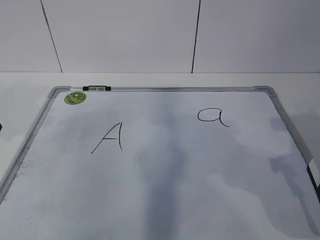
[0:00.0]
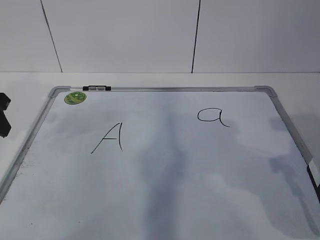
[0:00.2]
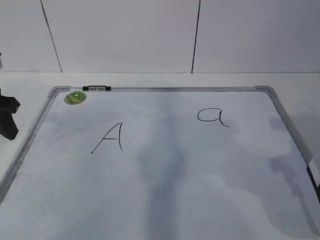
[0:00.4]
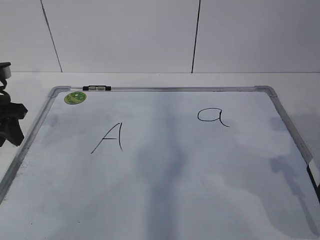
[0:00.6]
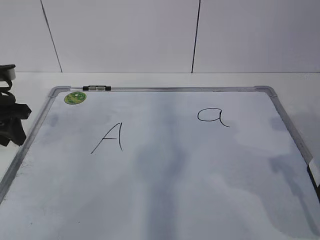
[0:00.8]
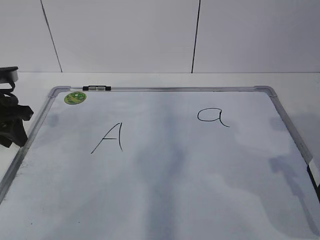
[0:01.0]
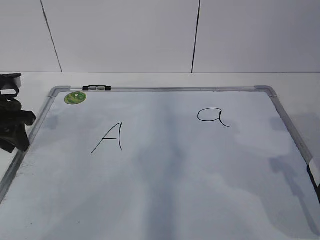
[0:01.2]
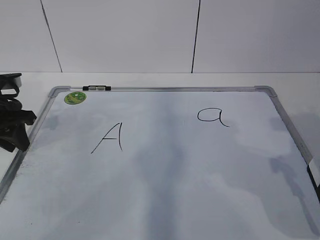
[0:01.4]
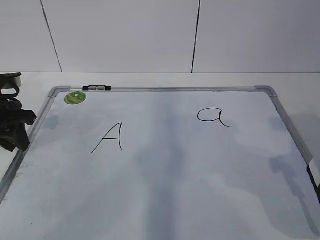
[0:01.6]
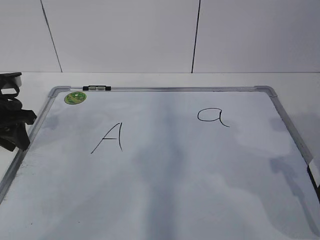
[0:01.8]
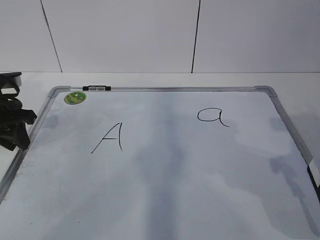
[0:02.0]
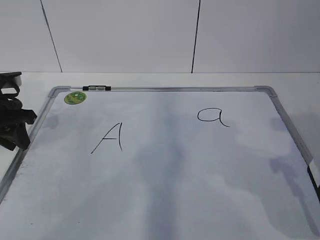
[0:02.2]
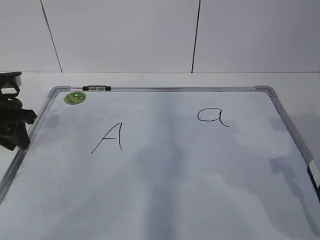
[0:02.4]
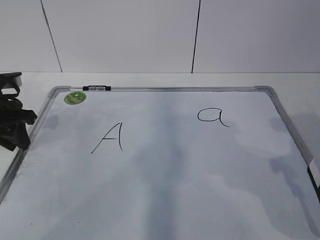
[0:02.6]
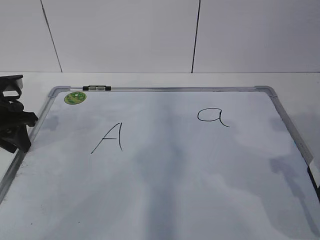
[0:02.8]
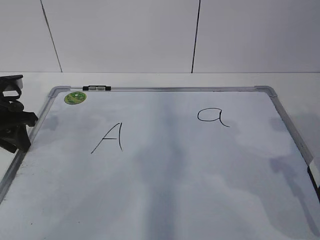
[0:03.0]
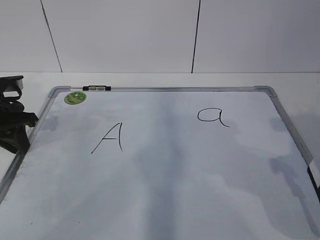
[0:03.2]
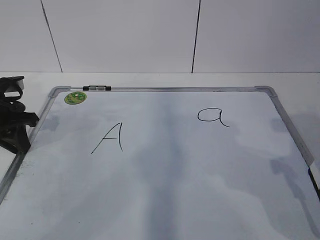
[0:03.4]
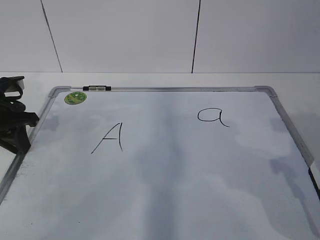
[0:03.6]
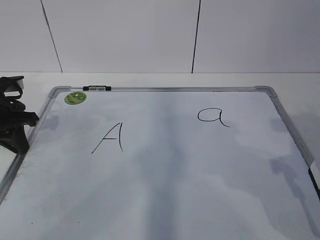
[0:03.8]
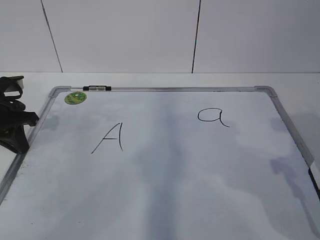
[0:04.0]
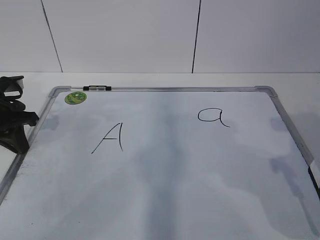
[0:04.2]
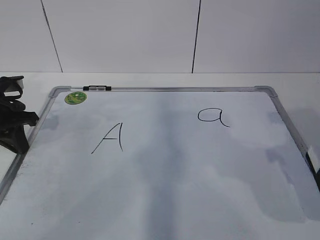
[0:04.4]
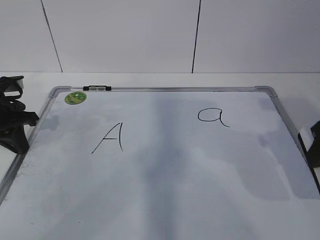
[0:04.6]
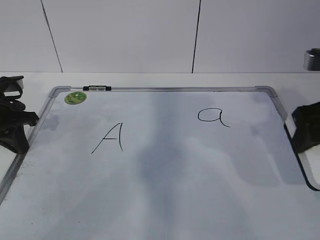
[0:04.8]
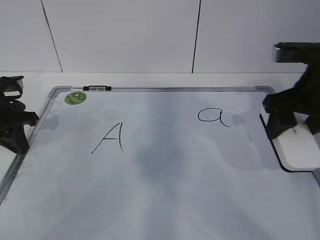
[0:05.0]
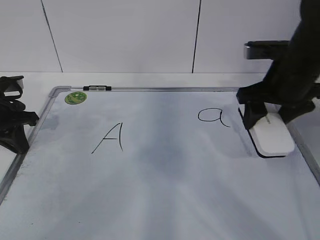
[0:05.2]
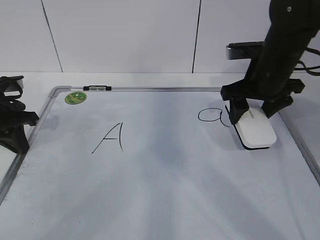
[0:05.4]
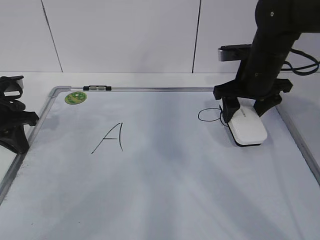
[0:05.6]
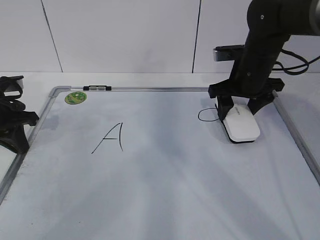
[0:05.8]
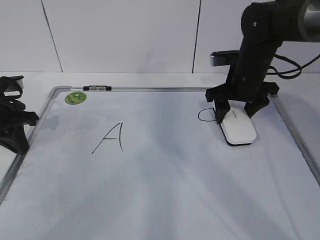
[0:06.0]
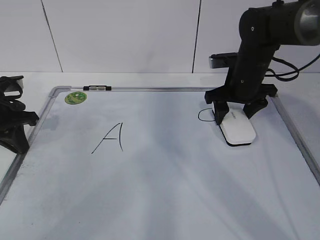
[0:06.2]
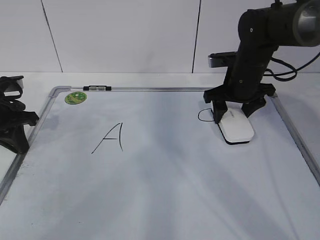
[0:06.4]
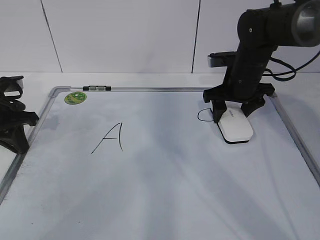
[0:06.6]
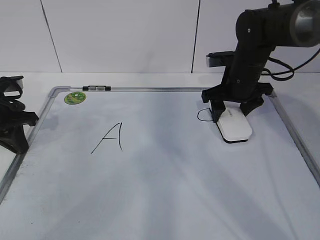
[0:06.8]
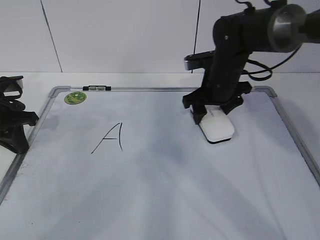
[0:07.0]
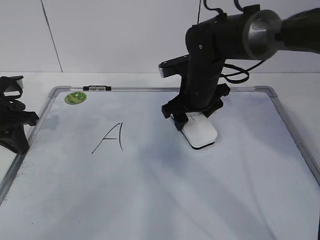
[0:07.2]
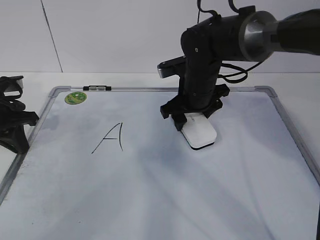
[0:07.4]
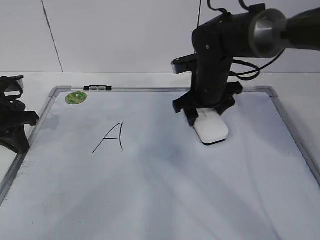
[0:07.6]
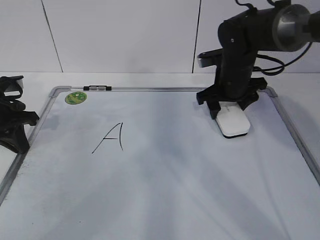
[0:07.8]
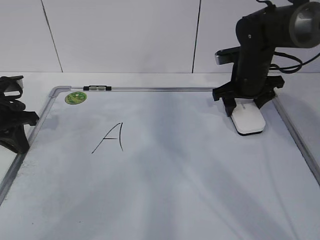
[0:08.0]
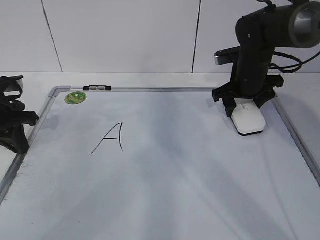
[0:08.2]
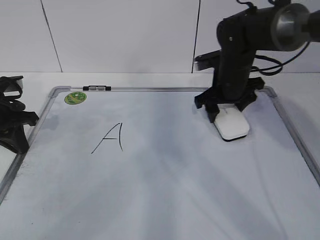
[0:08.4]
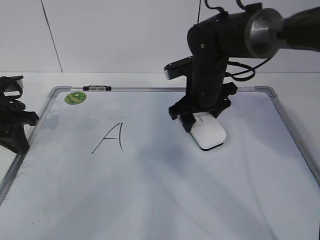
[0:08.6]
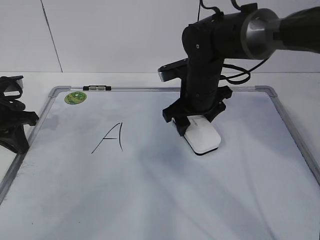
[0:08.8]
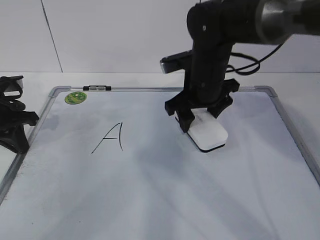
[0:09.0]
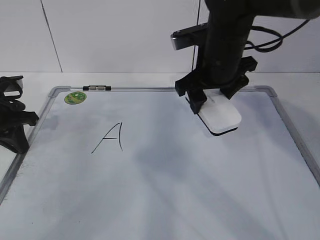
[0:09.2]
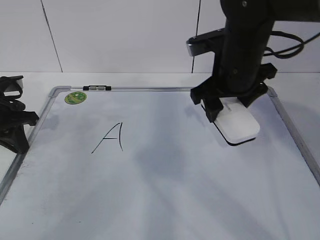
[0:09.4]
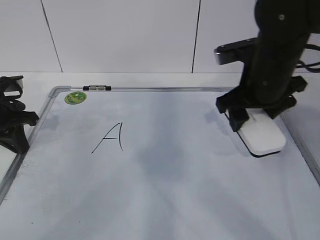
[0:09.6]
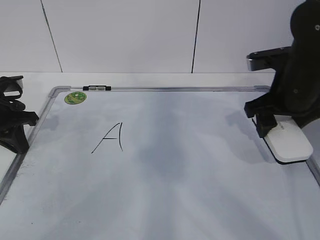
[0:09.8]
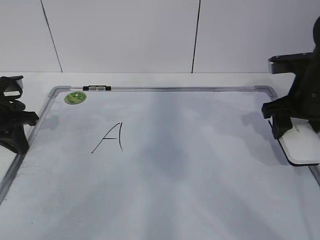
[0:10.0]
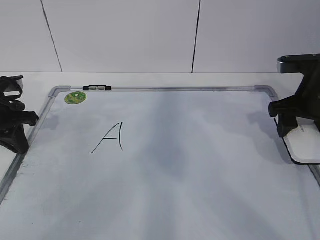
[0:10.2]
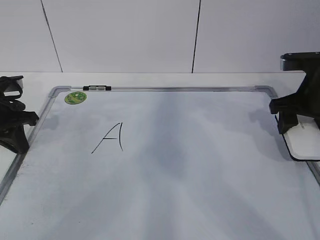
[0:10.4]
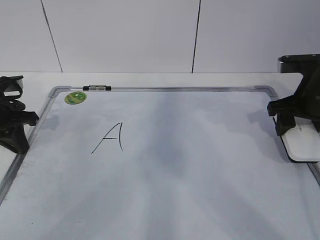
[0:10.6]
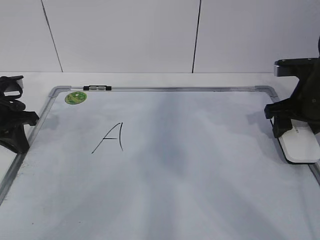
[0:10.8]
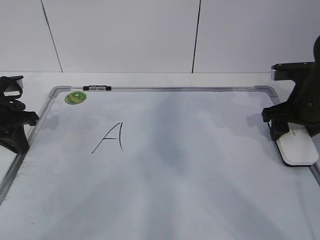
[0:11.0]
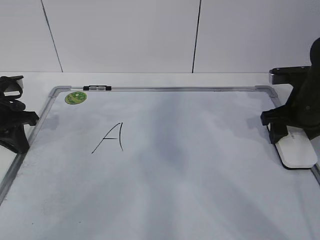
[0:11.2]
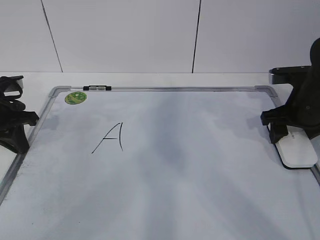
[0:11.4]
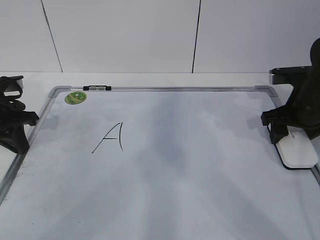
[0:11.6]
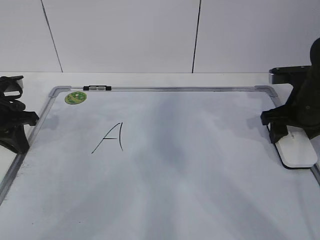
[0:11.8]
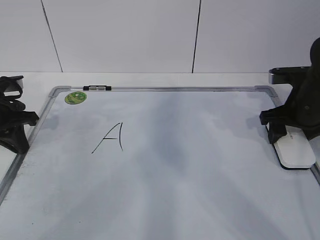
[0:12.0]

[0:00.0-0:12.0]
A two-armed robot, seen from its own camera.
Task of the whole recording: pick up the eraser on the blackboard and erase the letter "a".
Step, 0:04.2 to 0:07.0: Put down the eraser with your right hand.
0:00.0 to 0:01.6: The left gripper is displaced downward and forward by about 10 cm, and closes up.
0:01.6 to 0:03.0: Neither gripper changes place.
0:04.4 to 0:06.0: The right gripper moves forward, some 25 cm.
0:06.0 to 0:07.6: The right gripper heads to the left, covering some 5 cm.
0:07.6 to 0:09.0: The right gripper moves roughly 10 cm to the right and comes back.
0:09.0 to 0:10.4: The right gripper shifts roughly 20 cm to the right.
0:10.4 to 0:12.0: There are only small adjustments of the grippers.

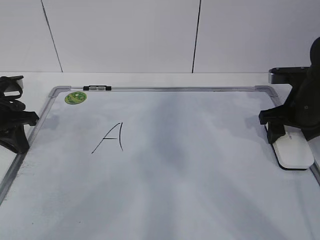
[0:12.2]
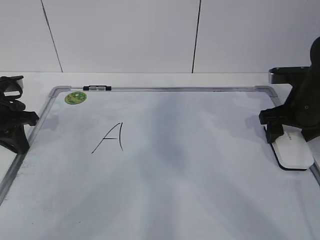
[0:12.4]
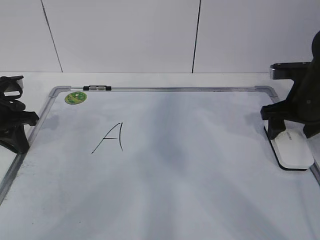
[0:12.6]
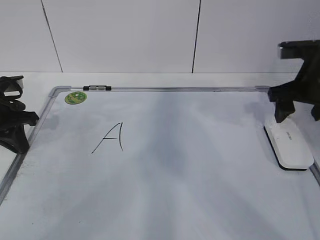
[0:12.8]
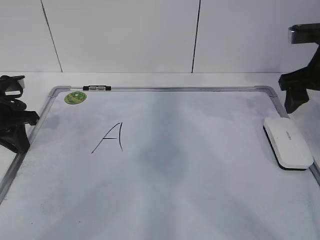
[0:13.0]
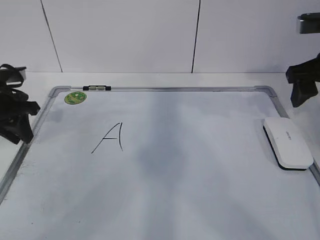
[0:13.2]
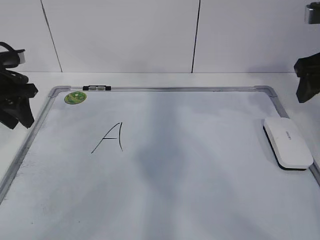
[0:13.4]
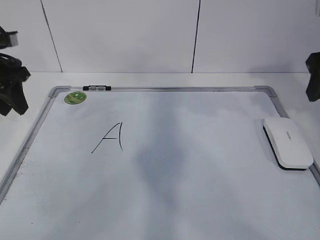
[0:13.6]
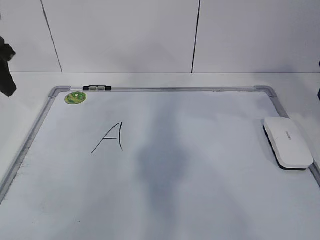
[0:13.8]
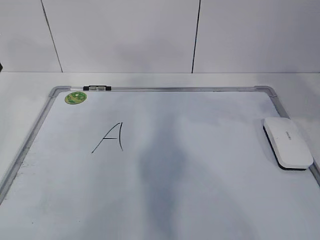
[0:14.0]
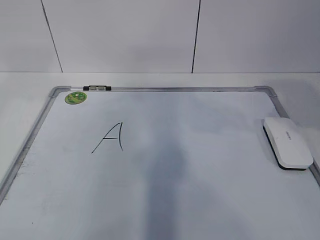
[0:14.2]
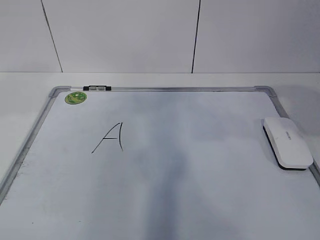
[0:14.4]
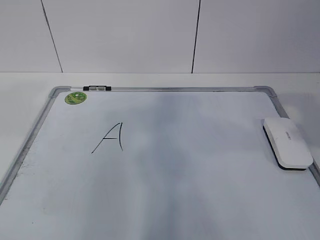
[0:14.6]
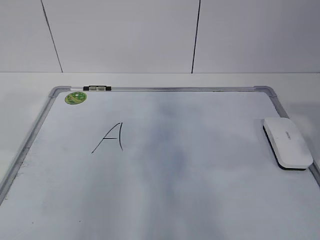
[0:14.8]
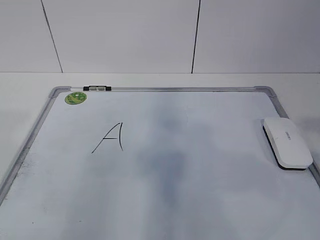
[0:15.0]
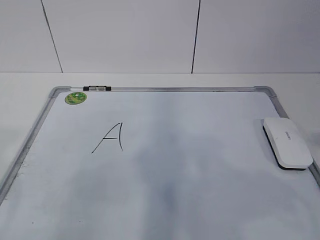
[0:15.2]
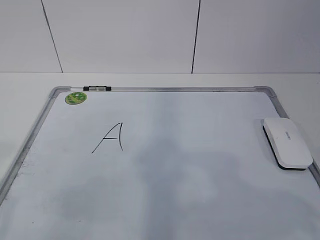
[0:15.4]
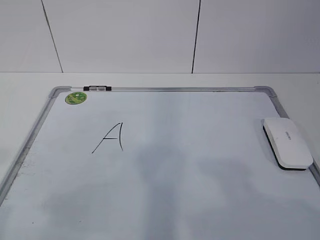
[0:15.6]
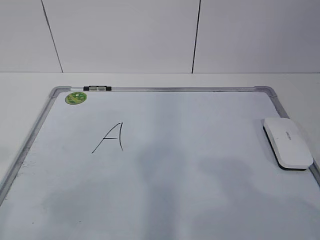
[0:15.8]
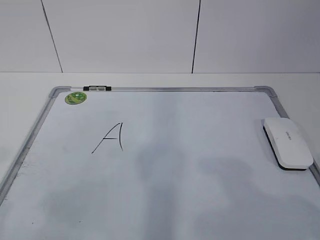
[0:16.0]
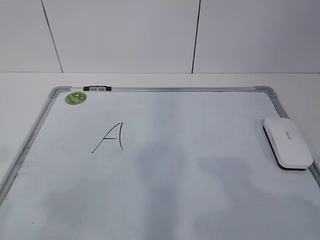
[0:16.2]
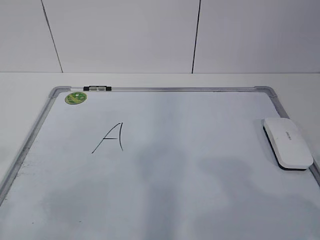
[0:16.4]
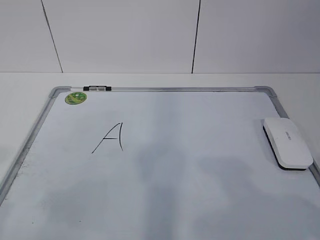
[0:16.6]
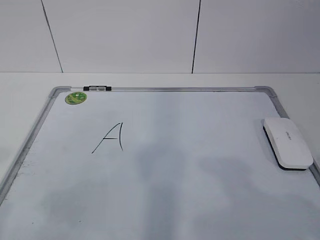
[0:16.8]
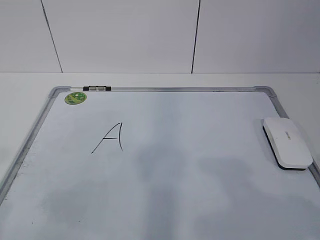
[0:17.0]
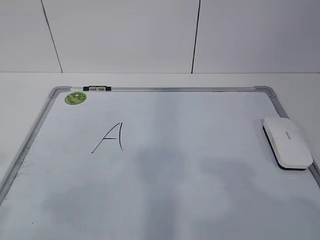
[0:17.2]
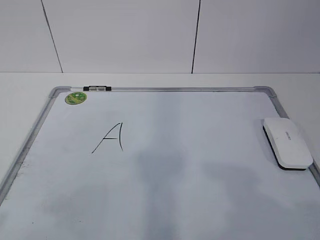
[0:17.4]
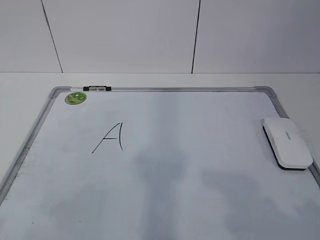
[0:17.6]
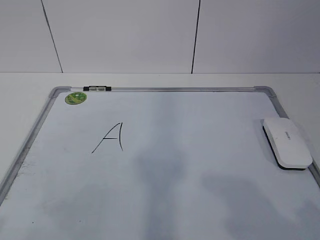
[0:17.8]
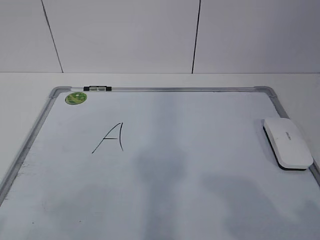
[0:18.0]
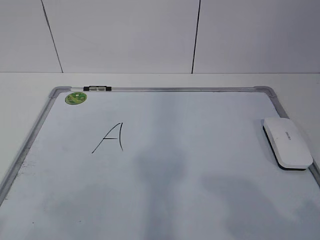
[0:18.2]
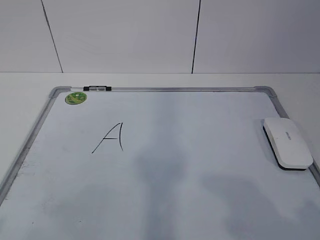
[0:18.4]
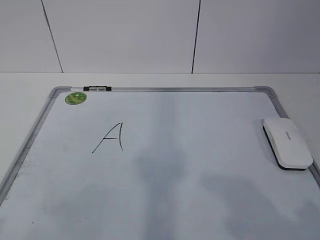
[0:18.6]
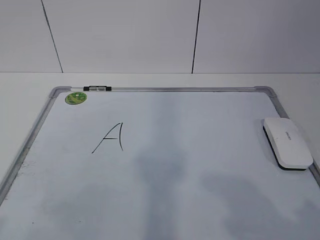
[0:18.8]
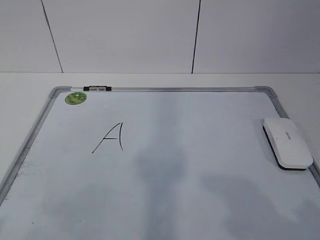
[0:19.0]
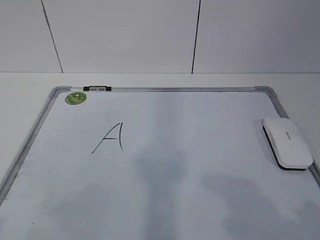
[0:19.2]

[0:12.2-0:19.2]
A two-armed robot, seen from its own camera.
Task of the whole recording: pick up the eraser on the blackboard and erase the letter "a".
0:12.2 to 0:13.6: The left gripper shifts roughly 10 cm upward, and opens up. The right gripper goes some 15 cm upward and backward.
0:13.6 to 0:15.0: Both grippers move backward, about 25 cm.
0:15.0 to 0:16.4: The grippers both shift downward by some 5 cm.
0:17.8 to 0:19.2: Neither gripper changes place.
